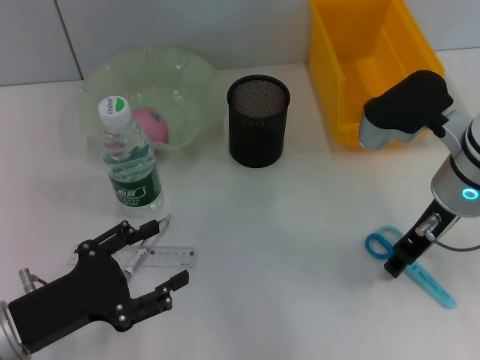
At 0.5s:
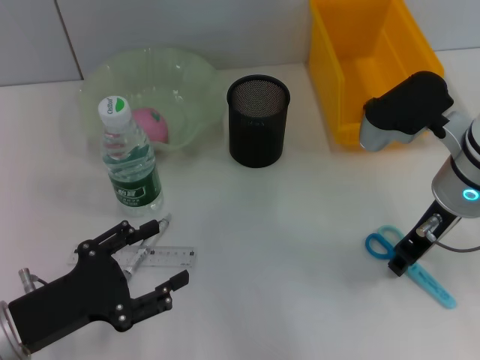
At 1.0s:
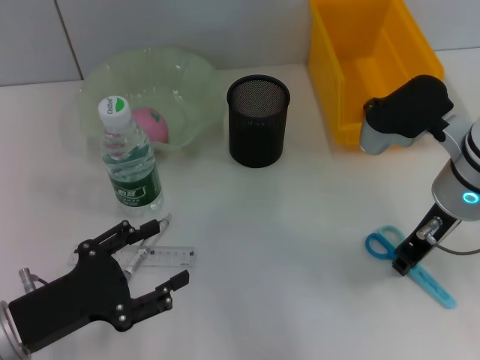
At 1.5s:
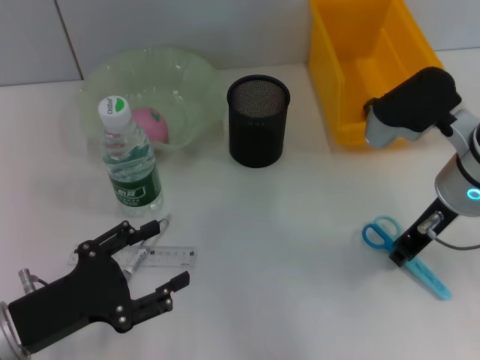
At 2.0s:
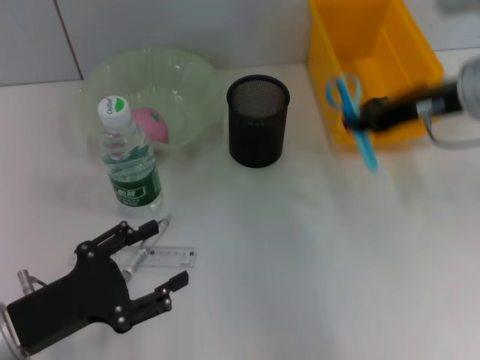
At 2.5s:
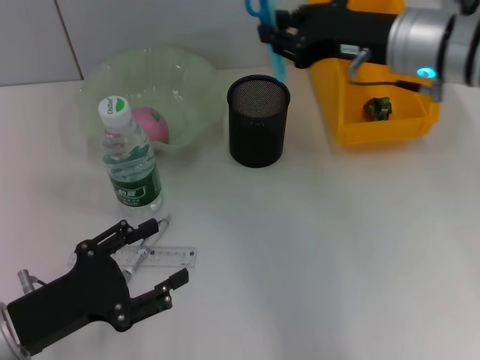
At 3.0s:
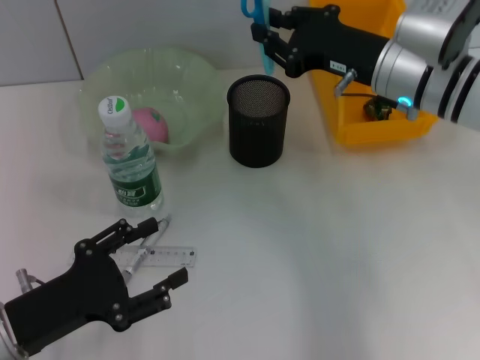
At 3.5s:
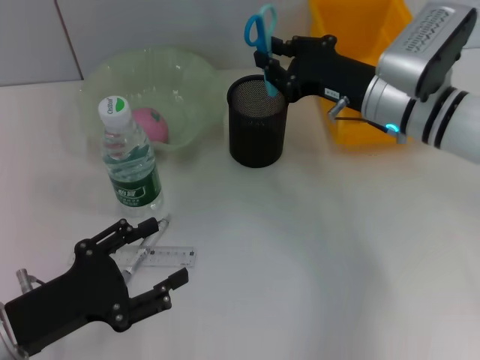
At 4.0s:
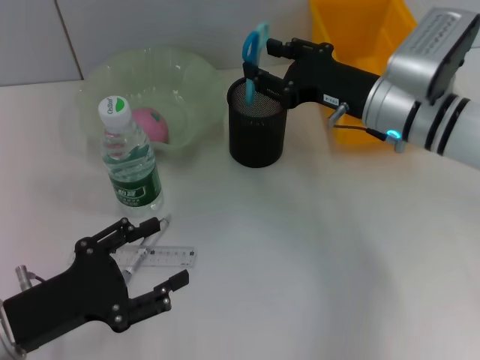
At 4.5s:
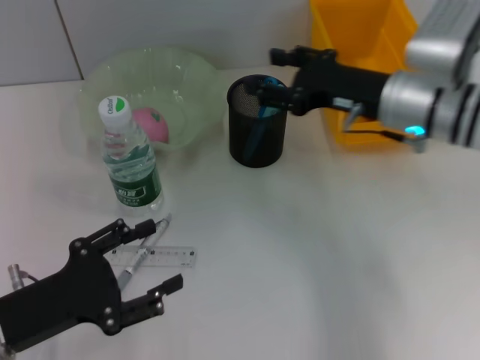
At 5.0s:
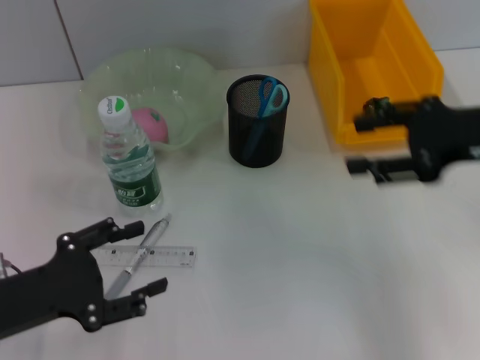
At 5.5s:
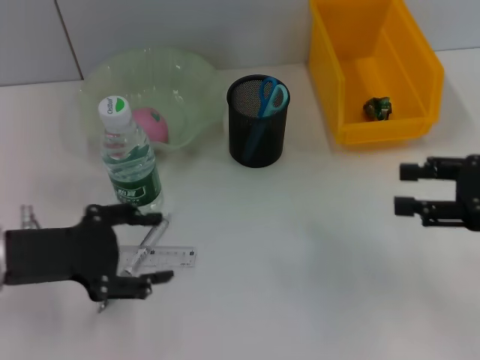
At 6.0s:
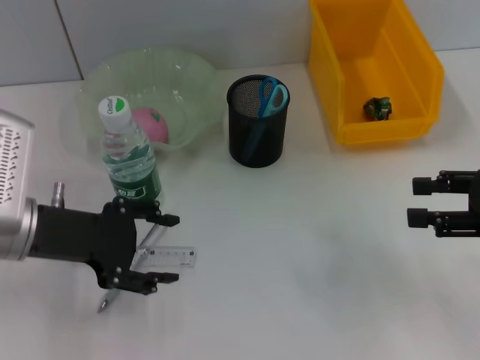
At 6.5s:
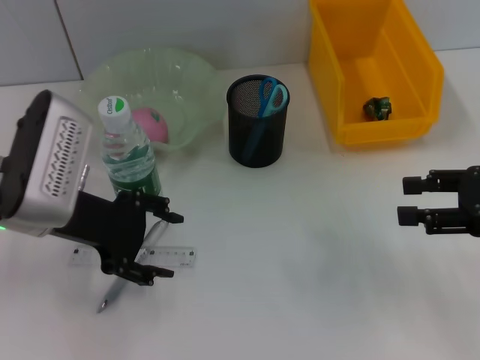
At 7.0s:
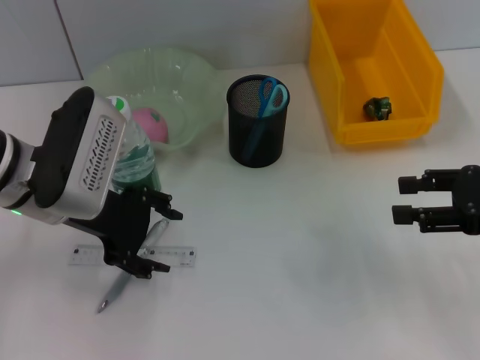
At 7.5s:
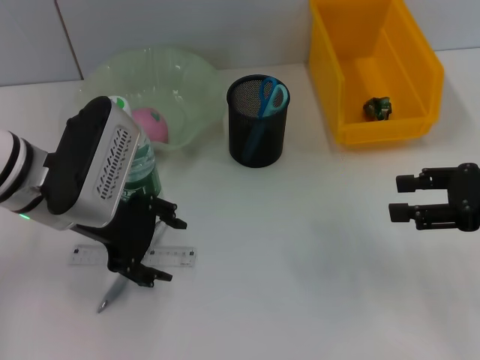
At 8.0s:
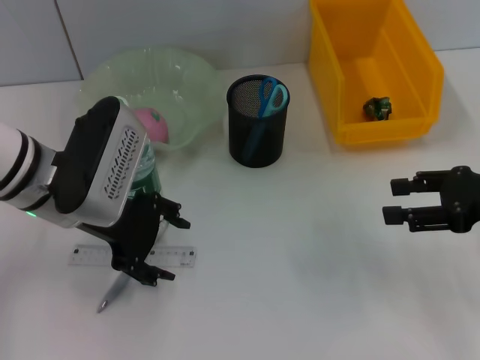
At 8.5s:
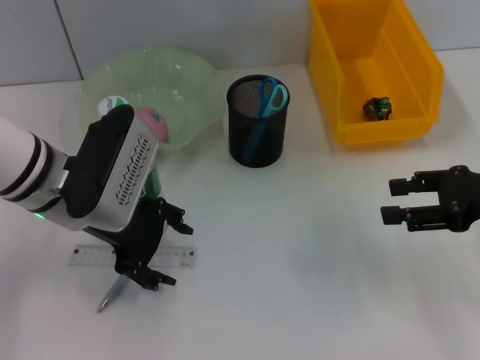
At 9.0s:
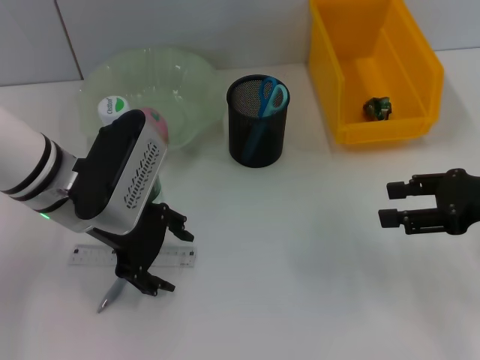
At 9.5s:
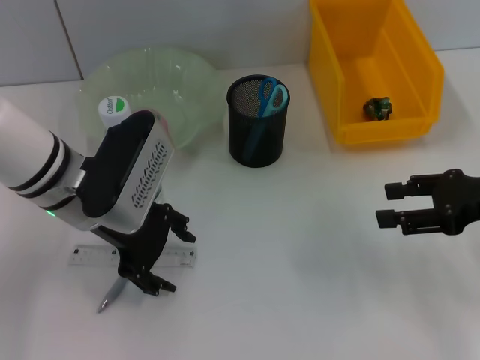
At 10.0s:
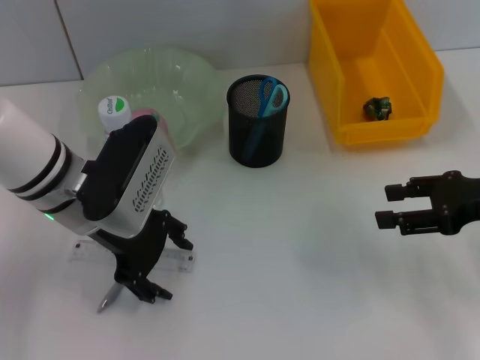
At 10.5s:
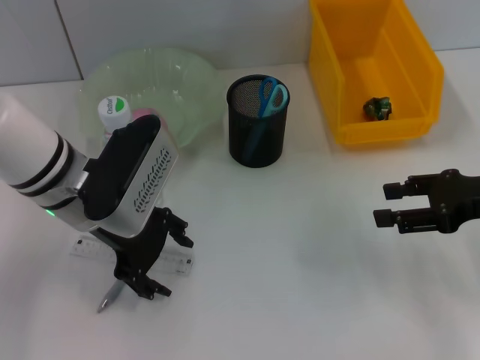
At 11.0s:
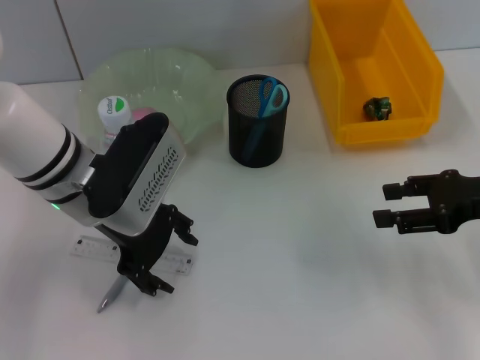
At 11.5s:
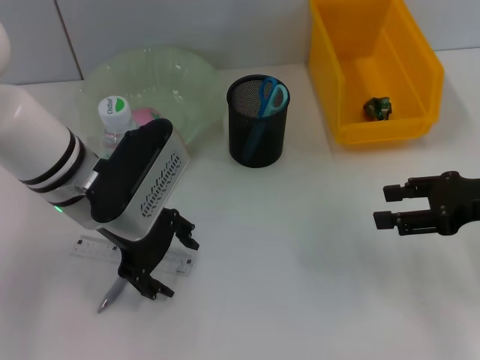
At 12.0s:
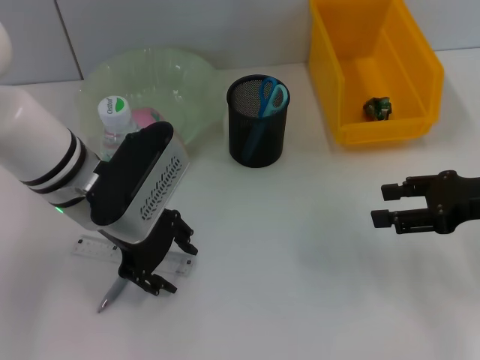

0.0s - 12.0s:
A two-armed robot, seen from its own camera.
Step, 1.5s - 4.0s: Place the blue scissors into the pen holder with the right hand.
0.0s - 2.0s: The right gripper is displaced upward by approximately 5 cm, and closes.
2.0s - 4.0s: The right gripper shifts about 10 cm downward.
4.0s - 6.0s: The left gripper goes approximately 15 cm forward and upward. The right gripper goes roughly 20 cm to the right and backward.
6.0s - 8.0s: The left gripper is displaced to the right by roughly 5 cm.
8.0s - 12.0s: The grippers make only small movements.

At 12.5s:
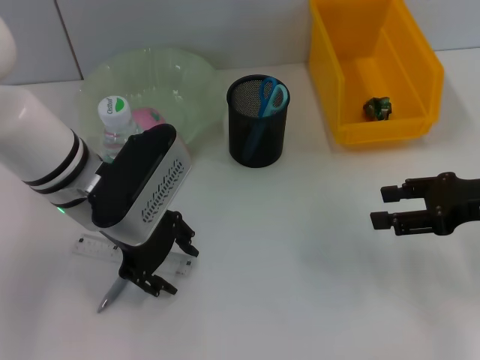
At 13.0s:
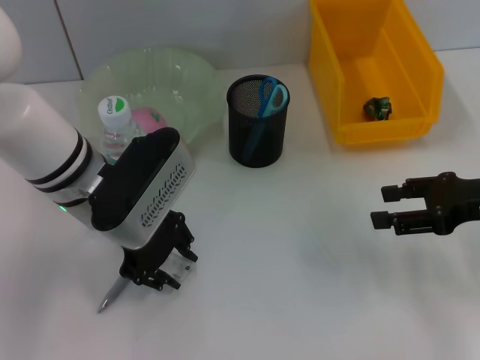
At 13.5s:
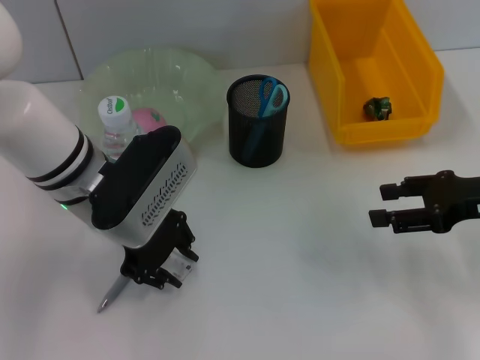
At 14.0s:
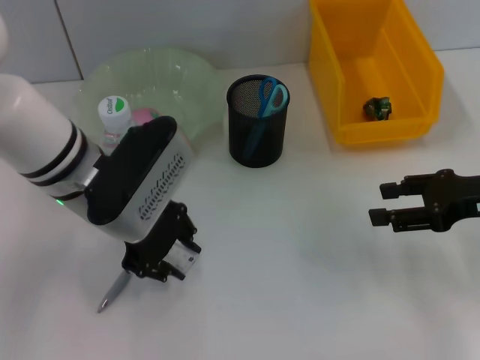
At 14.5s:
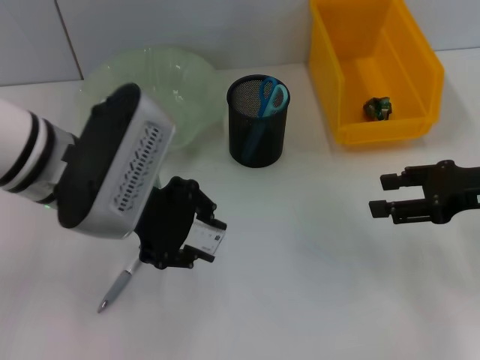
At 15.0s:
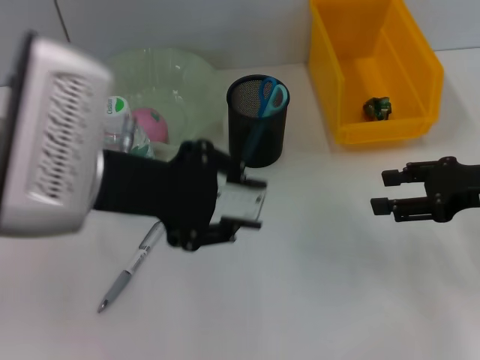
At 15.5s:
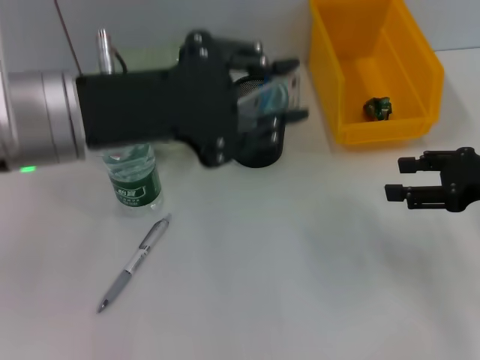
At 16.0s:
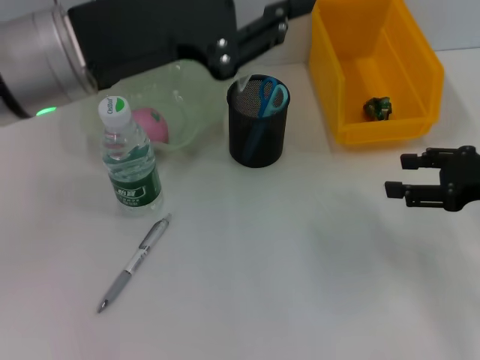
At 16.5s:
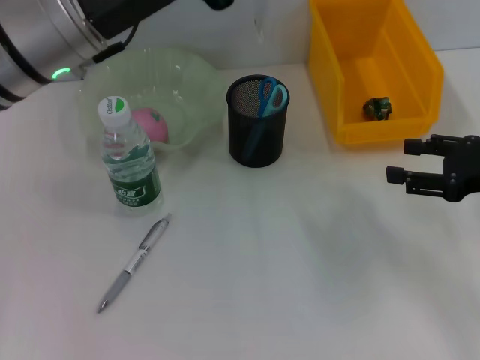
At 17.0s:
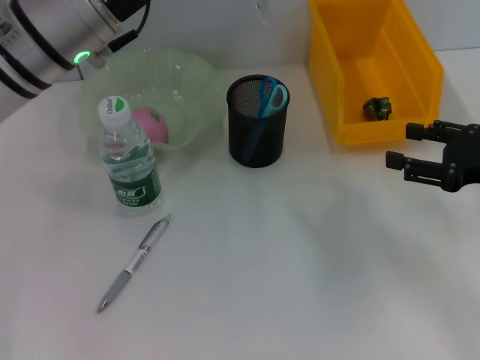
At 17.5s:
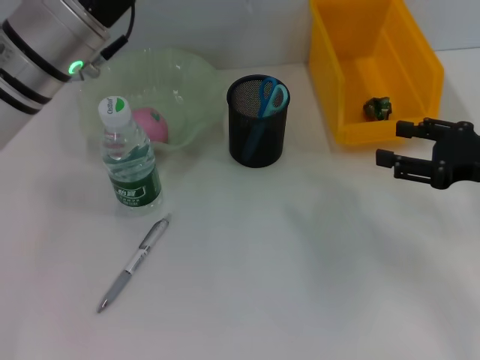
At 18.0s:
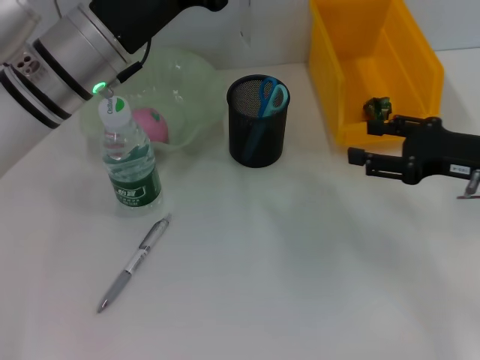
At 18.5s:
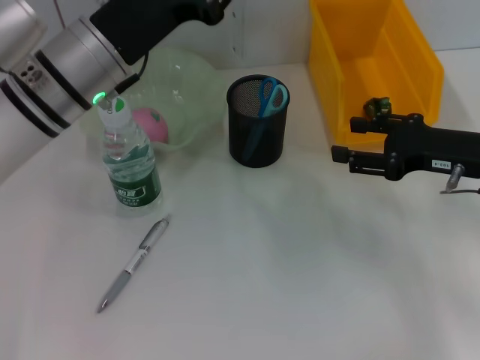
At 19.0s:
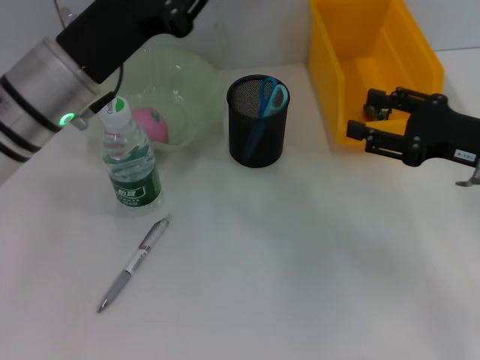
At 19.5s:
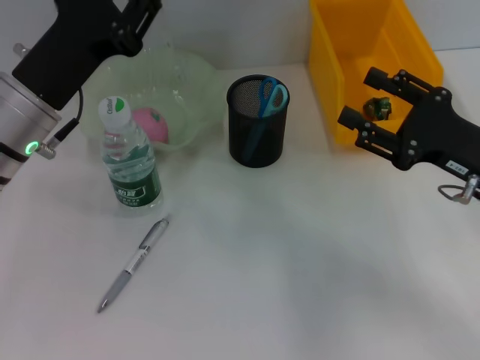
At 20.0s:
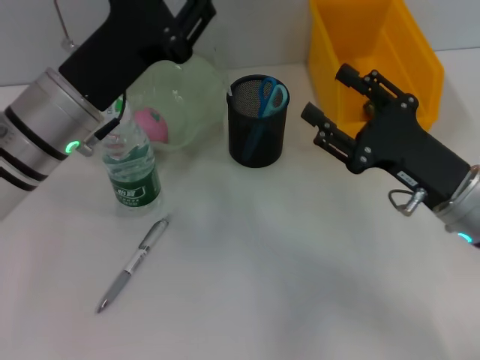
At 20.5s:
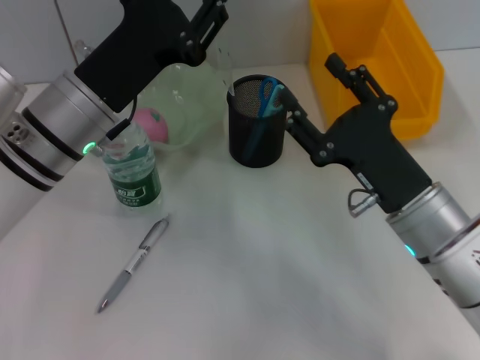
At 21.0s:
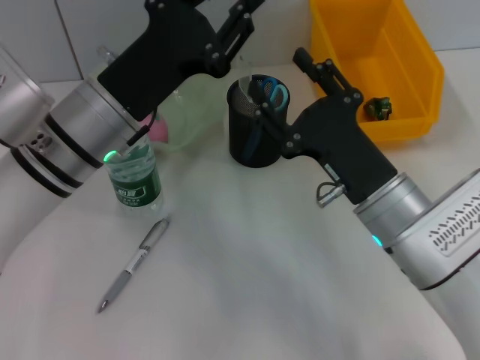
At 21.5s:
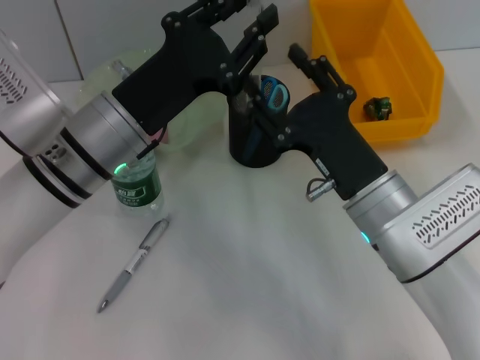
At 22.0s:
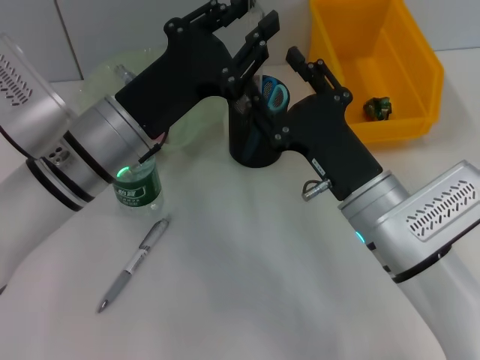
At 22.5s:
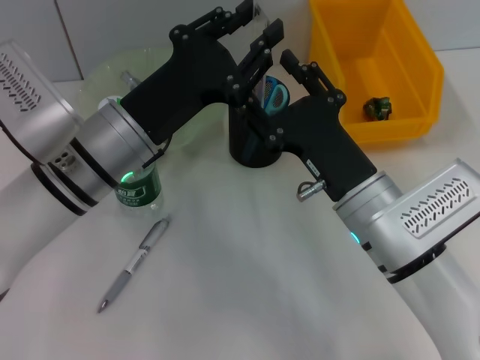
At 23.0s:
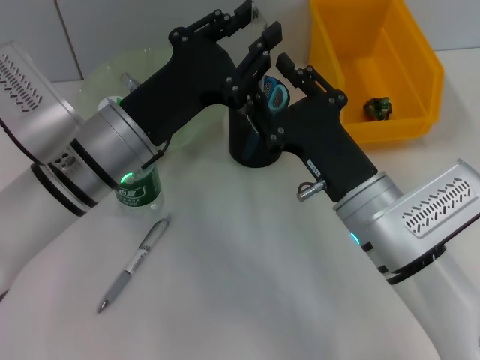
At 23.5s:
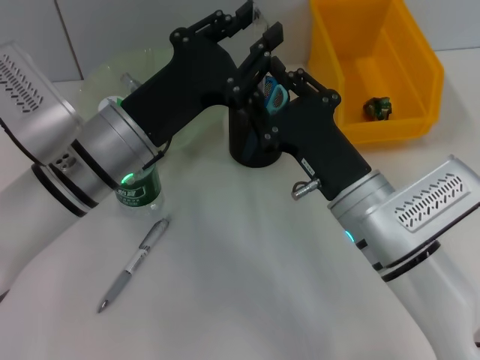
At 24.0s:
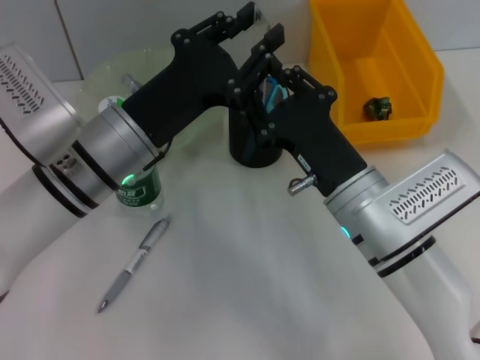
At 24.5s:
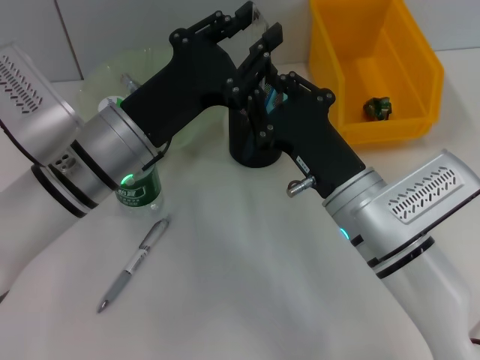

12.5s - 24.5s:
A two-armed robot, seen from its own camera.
12.5s - 14.5s: The left gripper goes some 5 cm upward.
14.5s - 16.5s: The left gripper moves upward, about 5 cm.
16.5s - 18.5s: The right gripper shifts by about 5 cm; the left gripper shifts approximately 5 cm downward.
18.5s - 20.5s: The right gripper is displaced to the left and backward by roughly 15 cm.
22.5s - 24.5s: The right gripper closes.

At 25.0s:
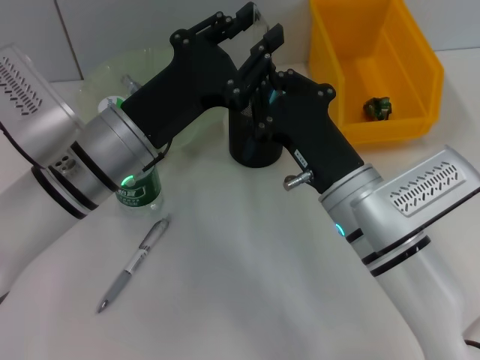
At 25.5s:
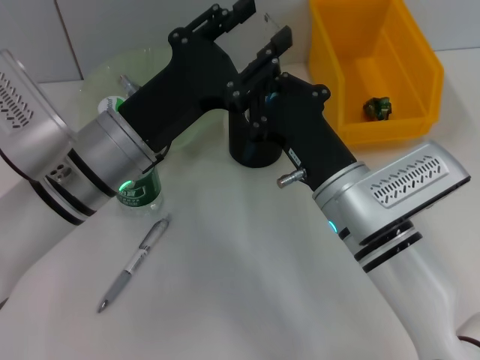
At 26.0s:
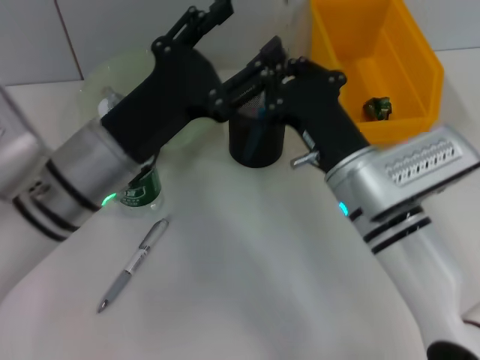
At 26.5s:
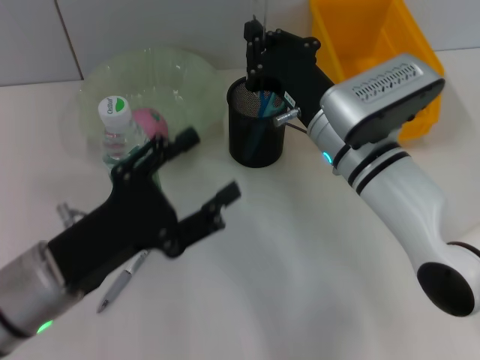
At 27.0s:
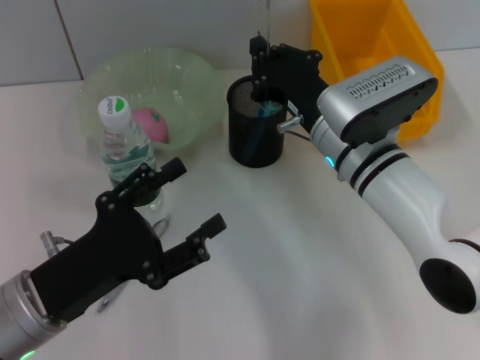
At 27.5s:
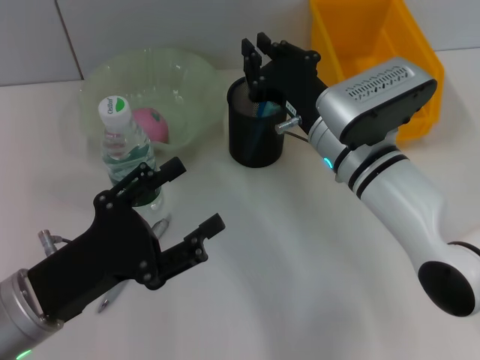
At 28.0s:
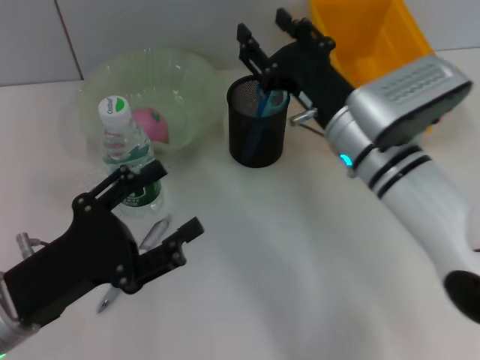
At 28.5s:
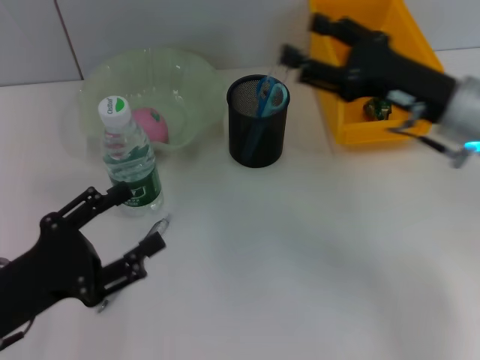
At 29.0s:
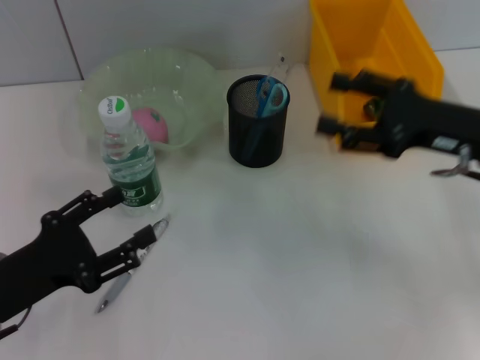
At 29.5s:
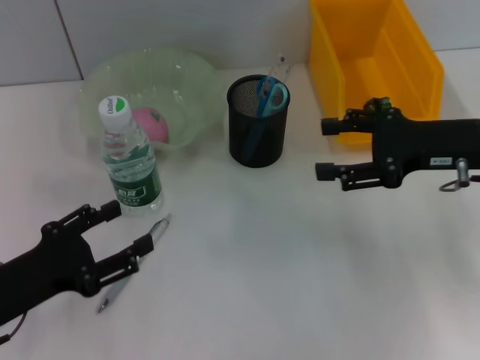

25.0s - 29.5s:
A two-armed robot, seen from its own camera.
Step, 25.5s - 27.5s: Place the ruler into the pen holder with the right hand.
25.0s - 27.0s: The right gripper shifts some 10 cm forward. The left gripper shifts roughly 15 cm backward, to the left and downward, and opens up.
27.0s - 29.5s: The left gripper moves to the left, approximately 5 cm. The right gripper moves to the right, approximately 15 cm, and opens.
